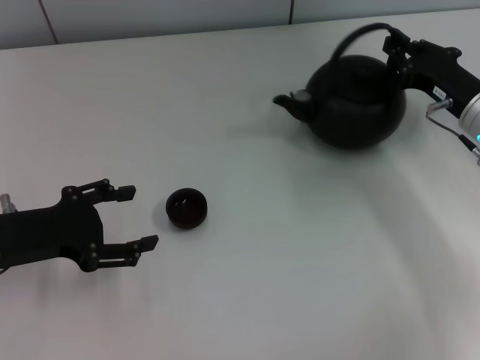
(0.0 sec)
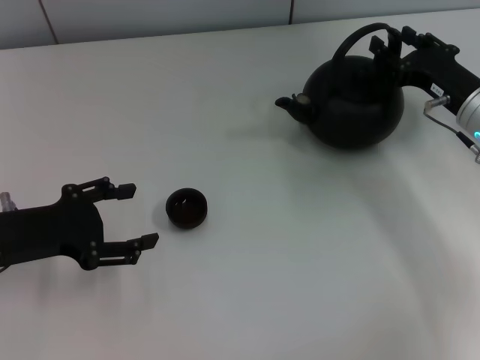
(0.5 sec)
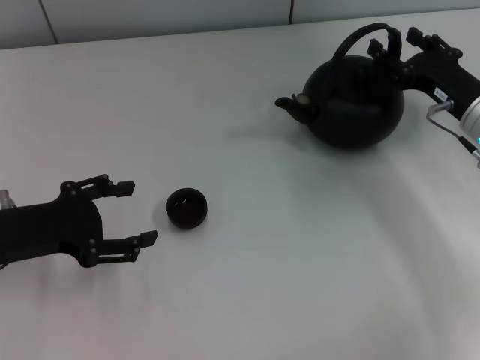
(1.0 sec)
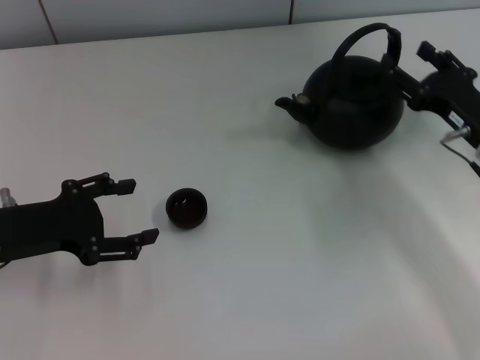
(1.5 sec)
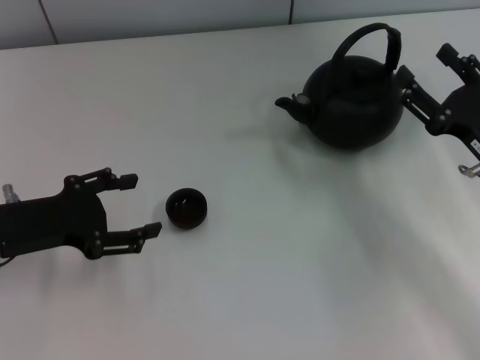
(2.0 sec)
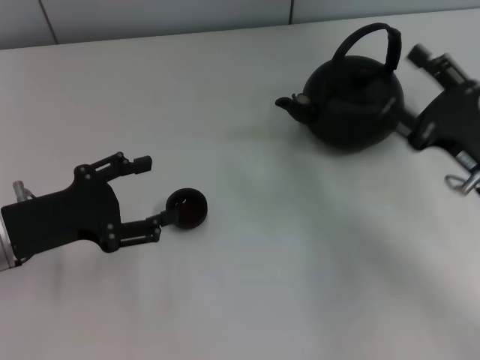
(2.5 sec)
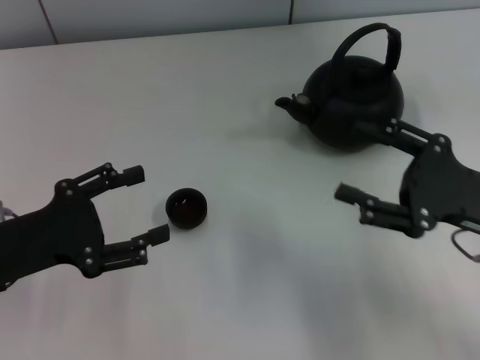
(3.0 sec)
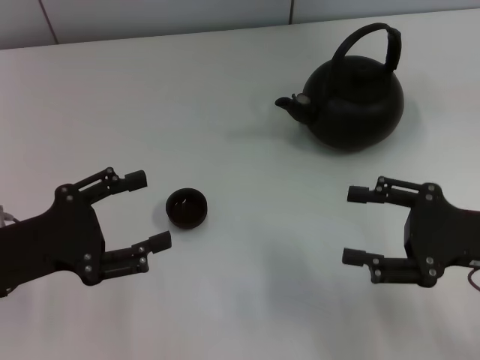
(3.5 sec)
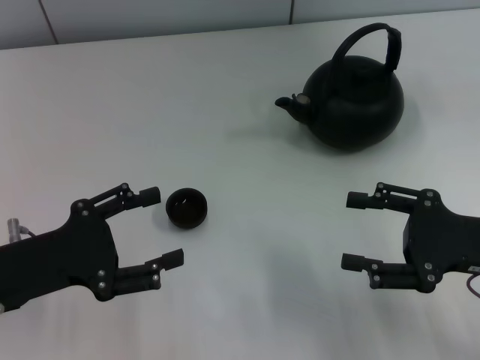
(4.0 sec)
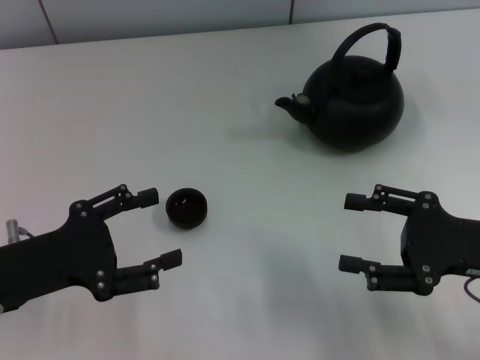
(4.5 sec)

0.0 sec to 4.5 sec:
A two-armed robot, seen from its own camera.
Task of the whole recording: Grasp the handle of the teapot with one hand and pour tea into the teacup.
Step, 0.0 sec to 2.0 sec: Put down the teapot with the right gripper.
0.0 sec to 2.0 sec: The right gripper travels backward by some 10 cm, and opens up.
2.0 sec to 4.5 sec: The right gripper ends up roughly 5 cm from where it was.

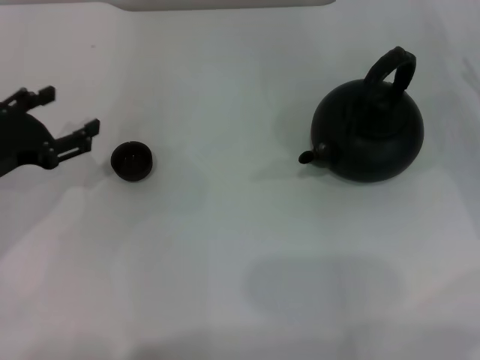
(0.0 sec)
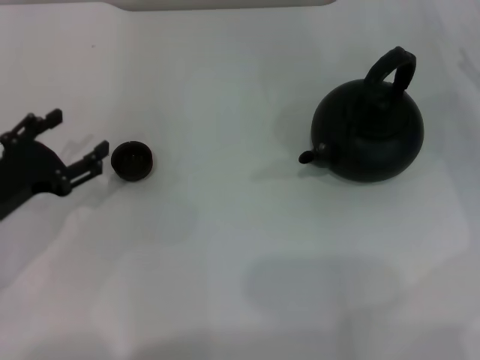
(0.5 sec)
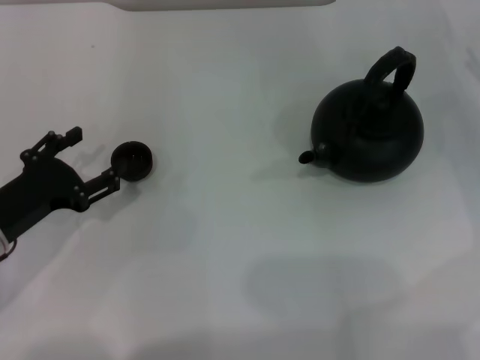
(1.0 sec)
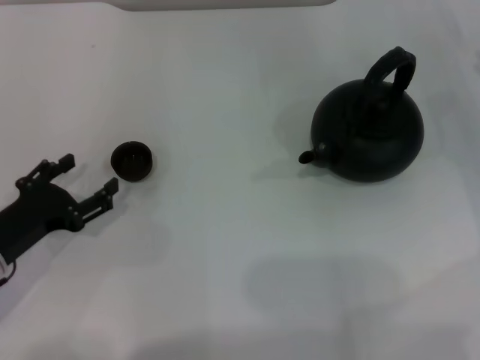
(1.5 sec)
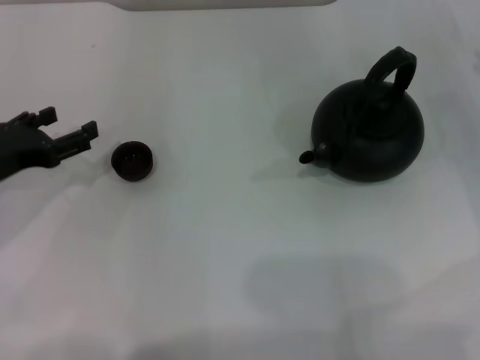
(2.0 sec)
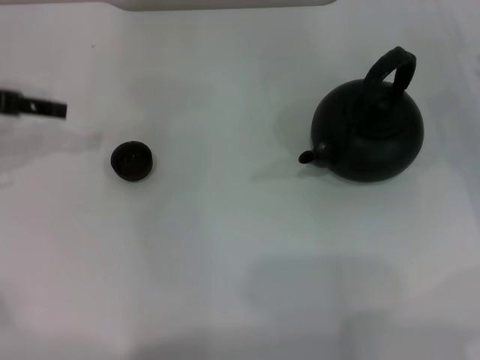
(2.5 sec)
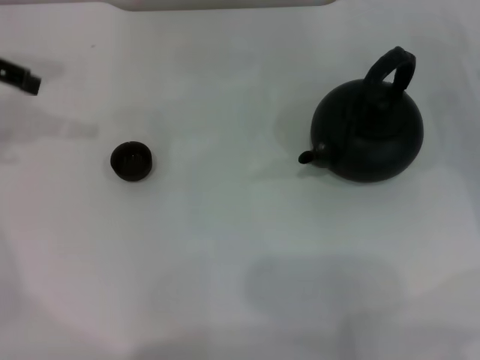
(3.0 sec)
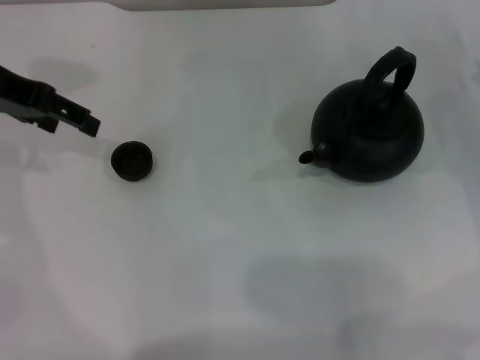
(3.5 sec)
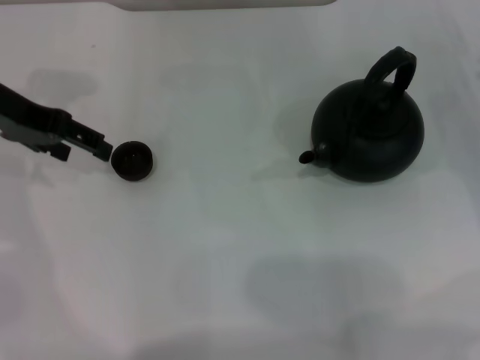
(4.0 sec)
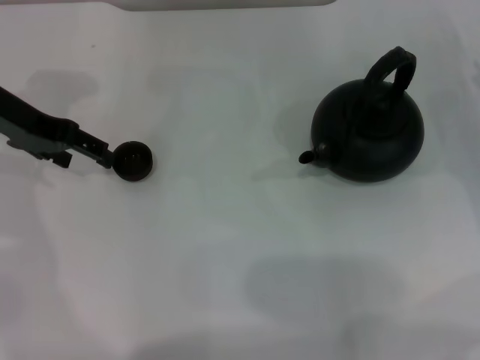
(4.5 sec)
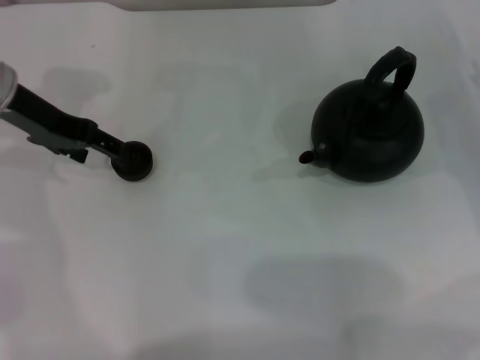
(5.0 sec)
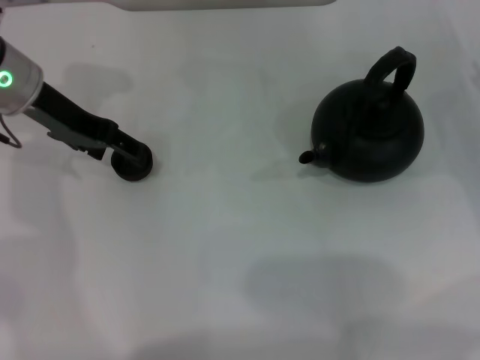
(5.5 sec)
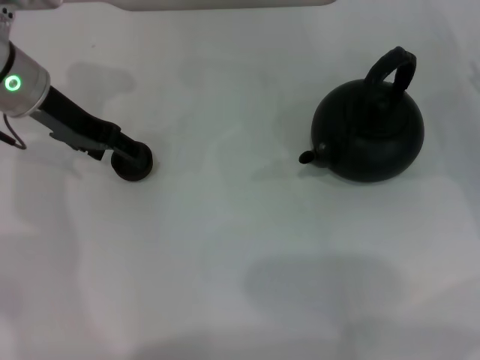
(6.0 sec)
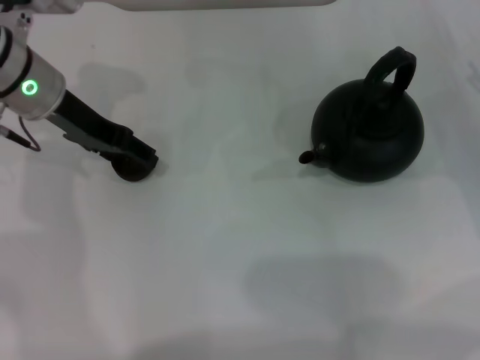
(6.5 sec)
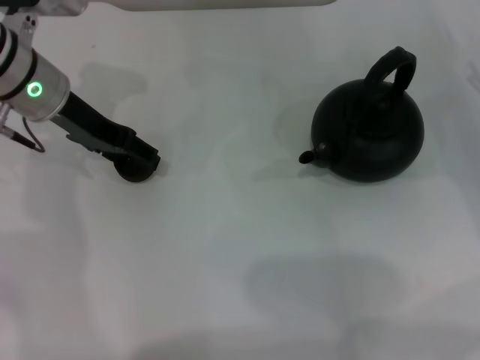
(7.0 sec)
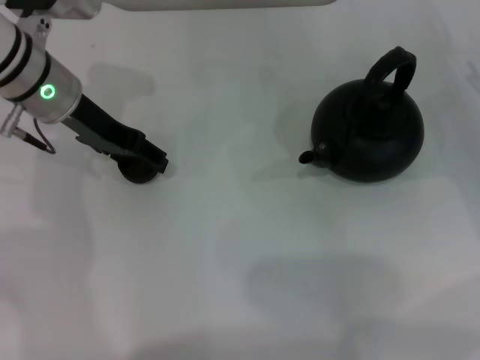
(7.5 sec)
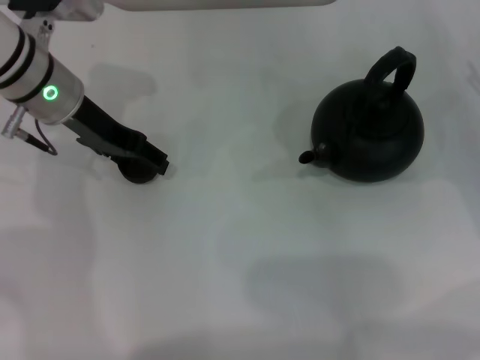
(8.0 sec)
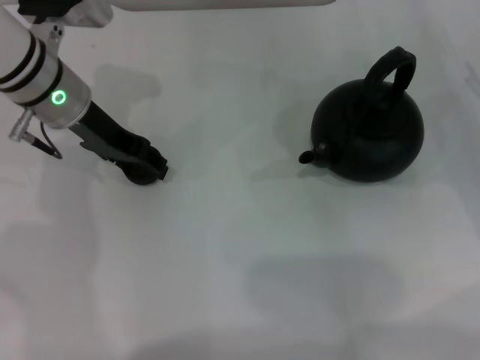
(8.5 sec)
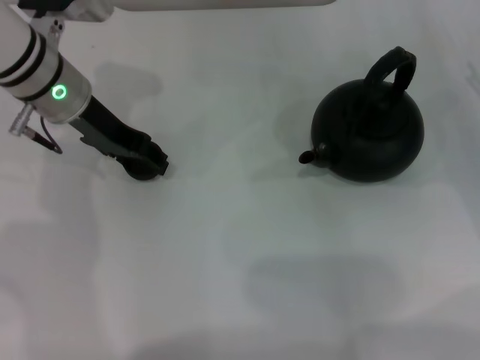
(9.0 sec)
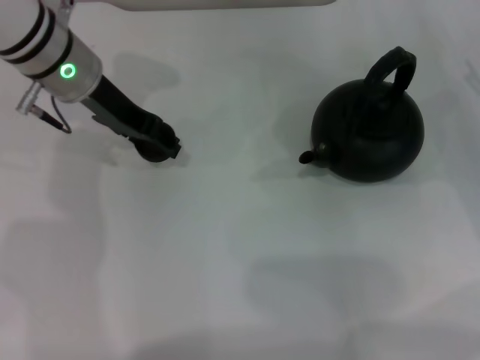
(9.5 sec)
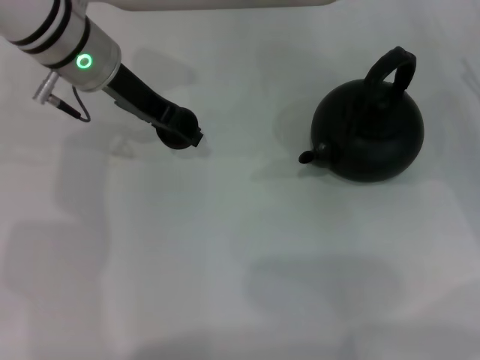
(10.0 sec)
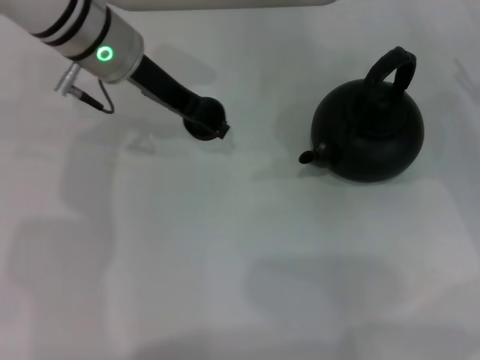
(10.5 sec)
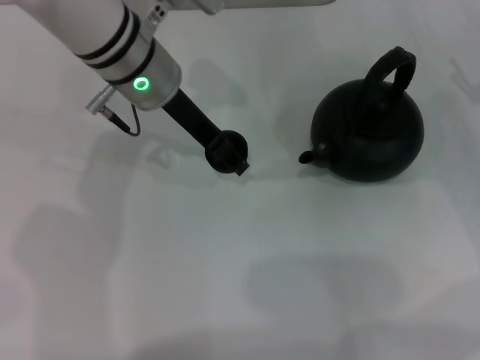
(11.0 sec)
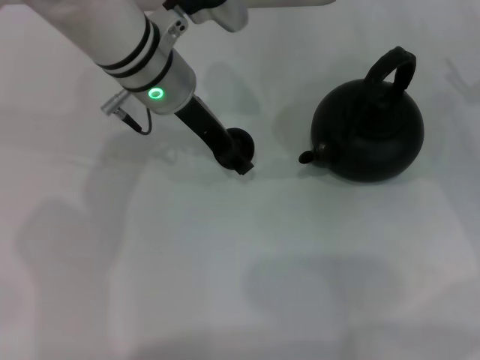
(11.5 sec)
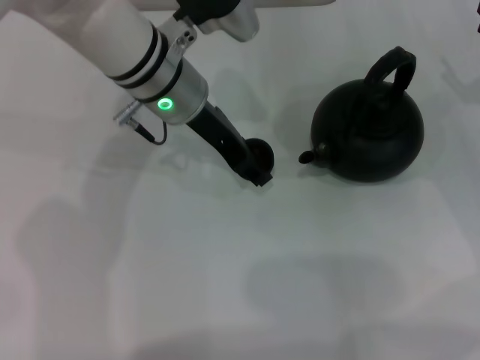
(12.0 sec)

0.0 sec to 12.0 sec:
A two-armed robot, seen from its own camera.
Task of the whole recording: Grasp the handle of the teapot with one hand and pour tea into the teacup.
Step, 0.0 sec to 10.0 sec: Pick up the teacup with the left gripper.
2.0 sec to 4.0 sec: The left gripper moves upward and forward, about 15 cm.
4.0 sec to 6.0 sec: The left gripper changes place by about 5 cm.
6.0 sec to 8.0 sec: The grippers move only a little.
8.0 sec to 10.0 sec: The left gripper changes place by approximately 5 cm, and closes up.
10.0 sec to 12.0 sec: The left gripper moves to the right, about 10 cm.

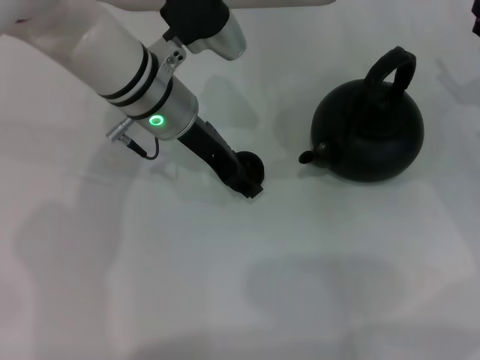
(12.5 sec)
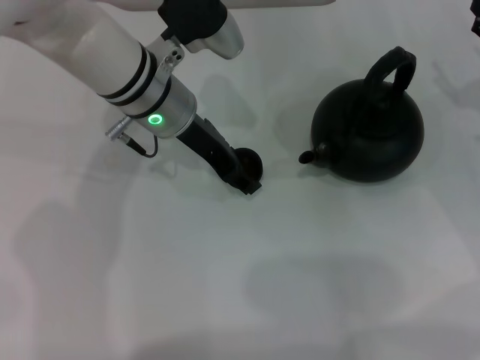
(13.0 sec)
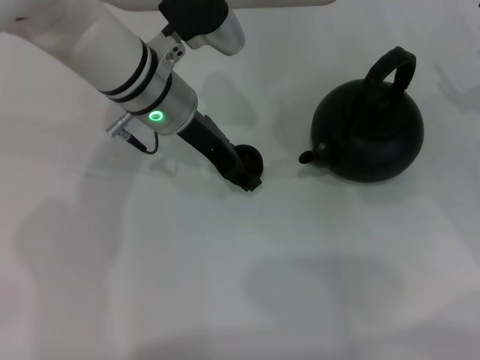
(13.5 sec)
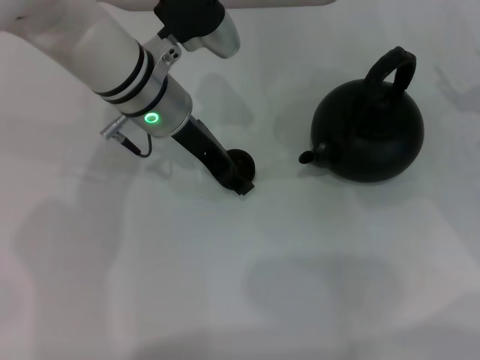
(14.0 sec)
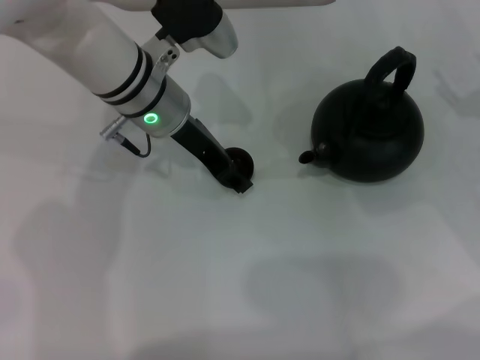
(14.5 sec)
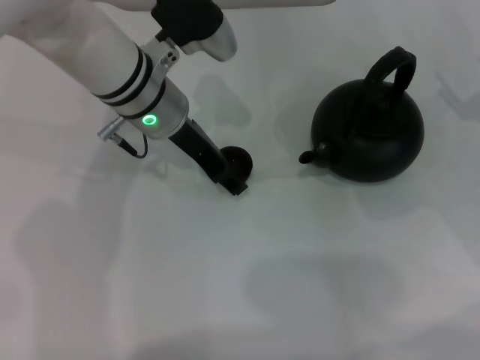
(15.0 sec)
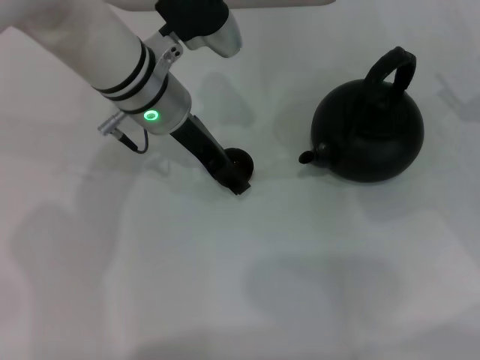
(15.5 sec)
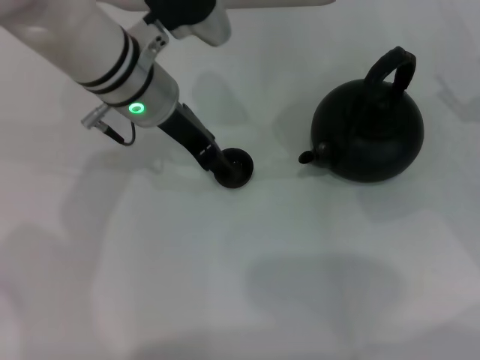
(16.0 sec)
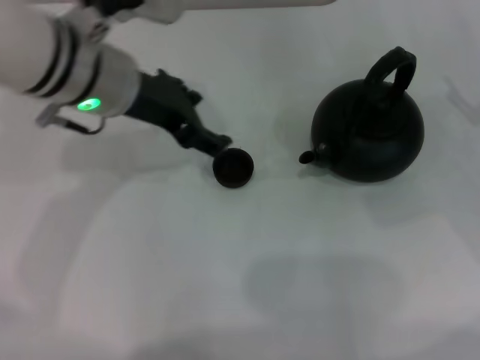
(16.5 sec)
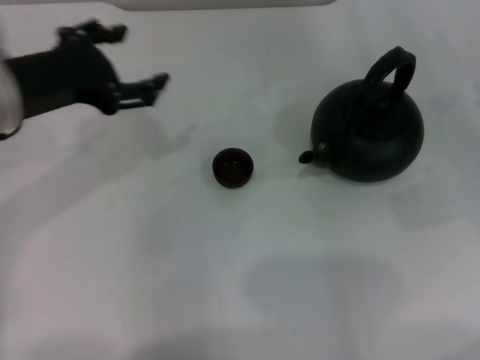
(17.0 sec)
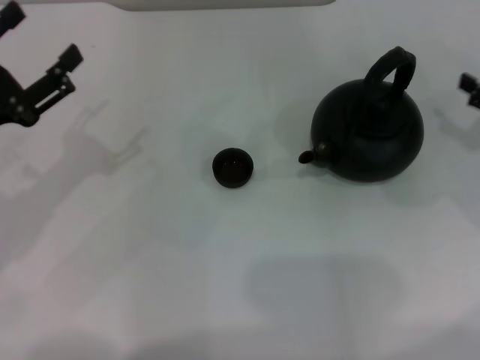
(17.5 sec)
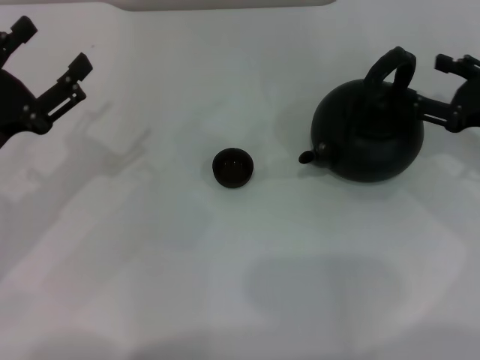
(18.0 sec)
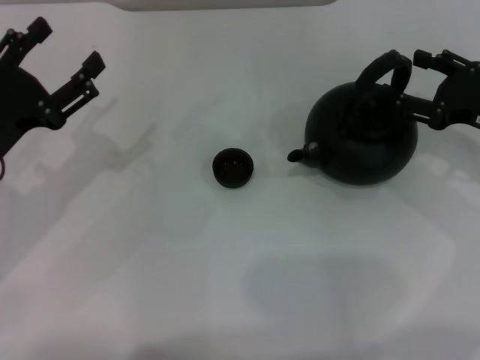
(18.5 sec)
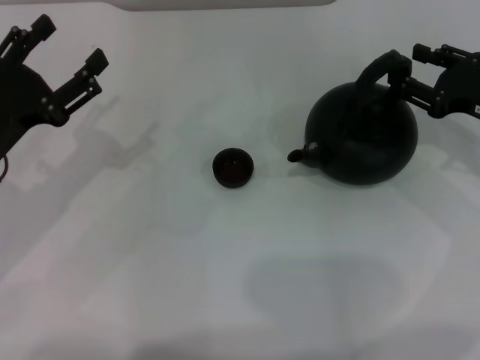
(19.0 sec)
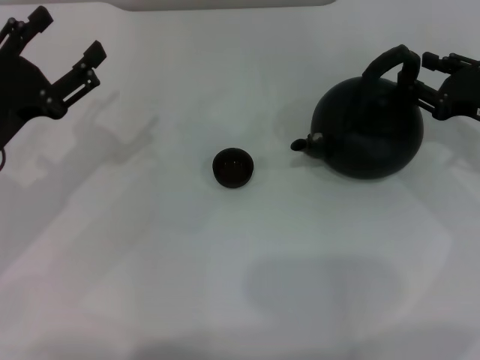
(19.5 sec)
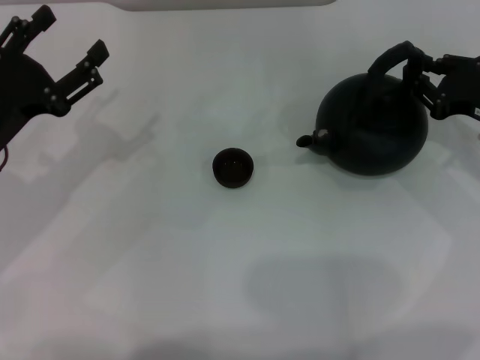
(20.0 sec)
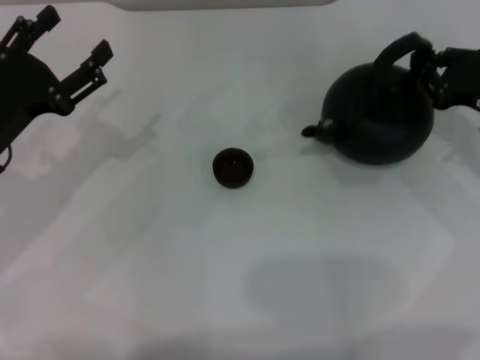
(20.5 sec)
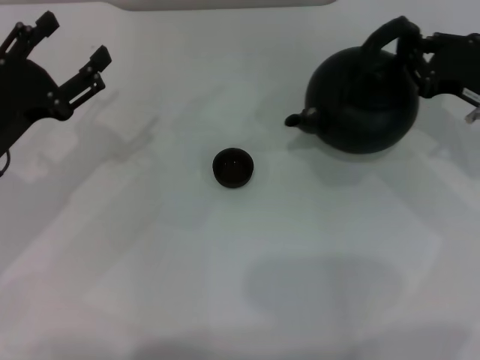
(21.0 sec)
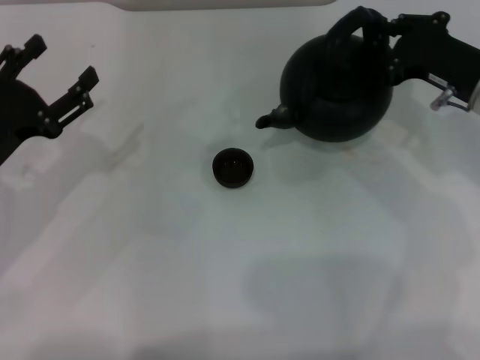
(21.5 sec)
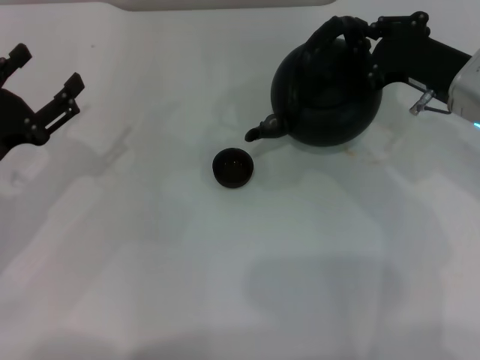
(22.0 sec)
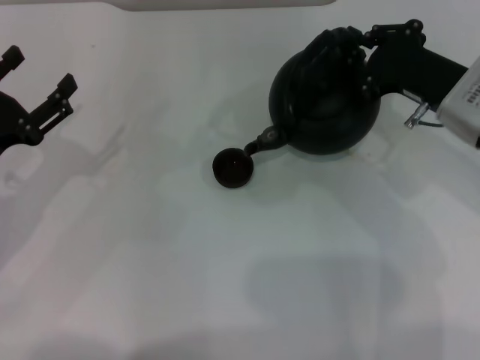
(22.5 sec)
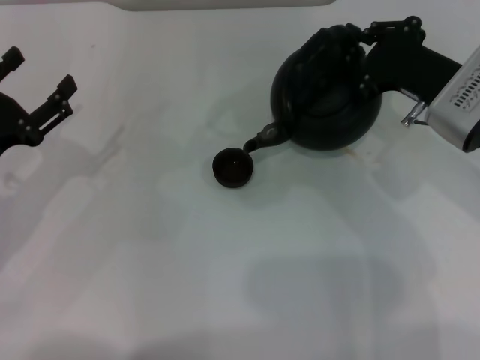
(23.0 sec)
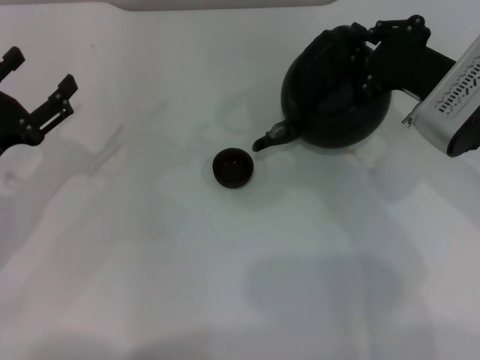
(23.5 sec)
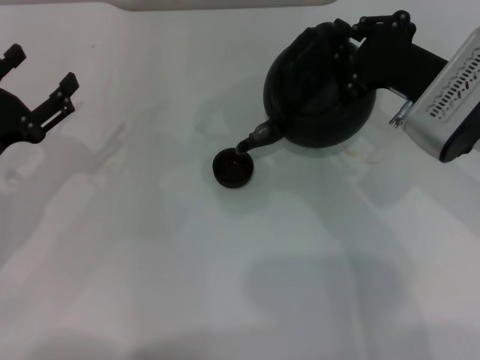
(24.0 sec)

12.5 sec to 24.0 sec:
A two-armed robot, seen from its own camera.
Task of the whole recording: Grasp the handle of the teapot with one hand and pour tea into the teacup.
Step, 12.5 sec to 15.5 sec: Place the teacup in the center of view with the left gripper.
Step, 16.0 sec to 21.5 sec: Pick up the teapot with the right gripper.
12.5 sec to 14.5 sec: The grippers move only a little.
14.5 sec to 16.5 sec: The left gripper shifts some 5 cm upward, and opens up.
16.5 sec to 18.5 sec: The right gripper ends up some 5 cm from where it was, while the left gripper heads to the left, downward and backward, covering some 20 cm.
18.5 sec to 20.0 sec: The right gripper closes its fingers.
20.0 sec to 22.0 sec: The right gripper travels to the left by approximately 10 cm, and closes.
22.0 sec to 24.0 sec: There are only small adjustments of the grippers.
